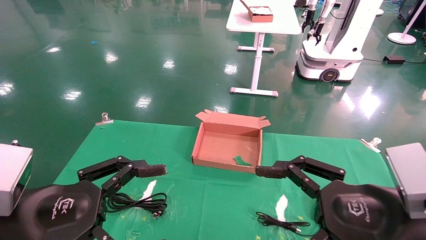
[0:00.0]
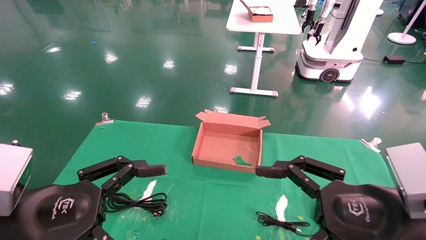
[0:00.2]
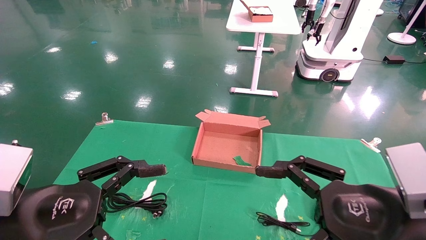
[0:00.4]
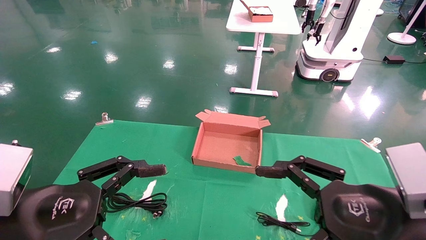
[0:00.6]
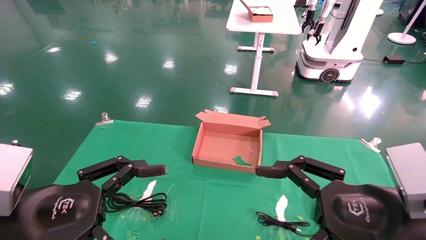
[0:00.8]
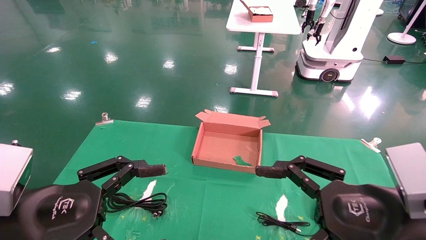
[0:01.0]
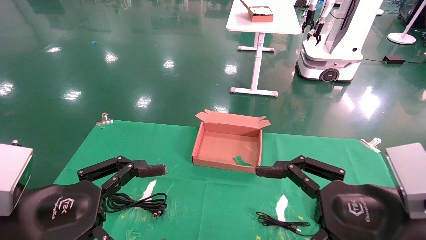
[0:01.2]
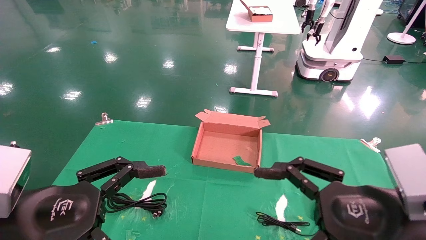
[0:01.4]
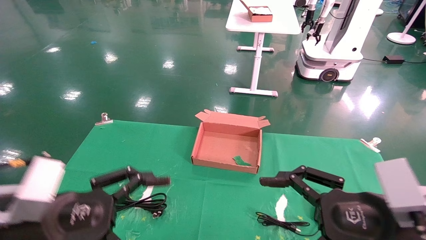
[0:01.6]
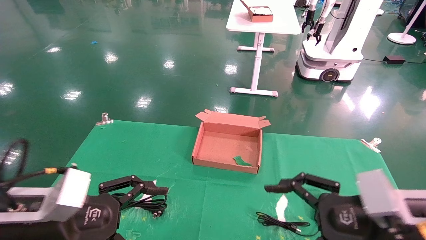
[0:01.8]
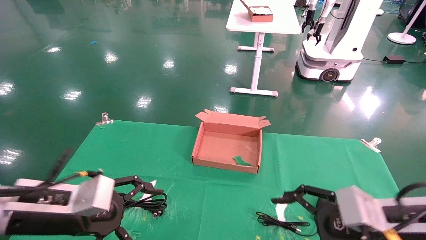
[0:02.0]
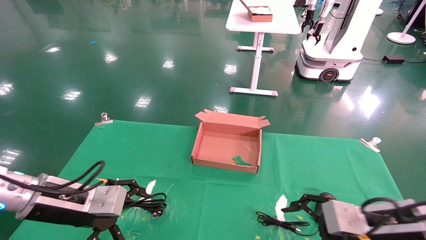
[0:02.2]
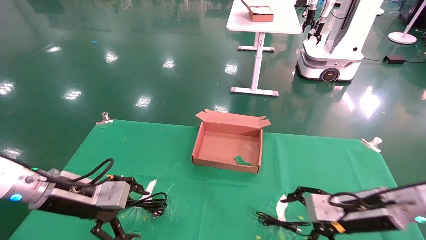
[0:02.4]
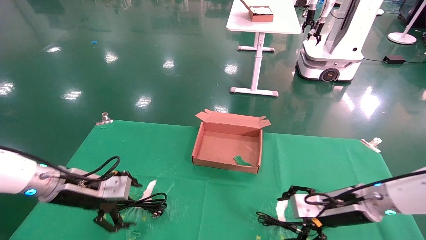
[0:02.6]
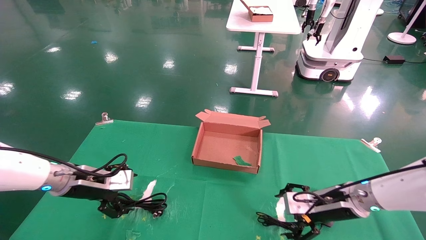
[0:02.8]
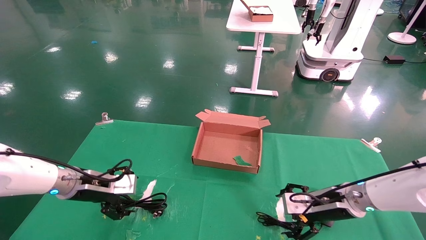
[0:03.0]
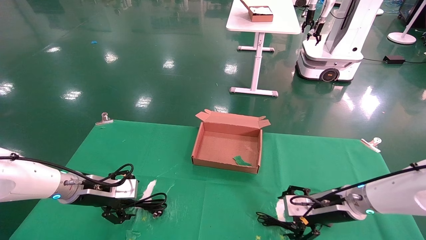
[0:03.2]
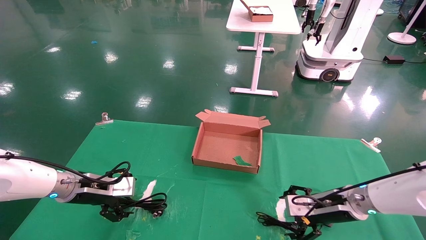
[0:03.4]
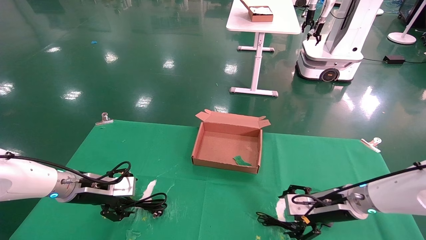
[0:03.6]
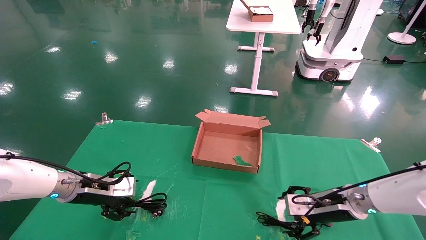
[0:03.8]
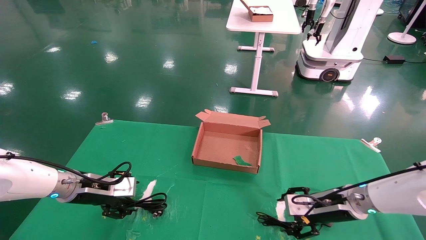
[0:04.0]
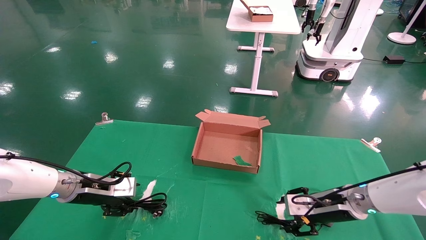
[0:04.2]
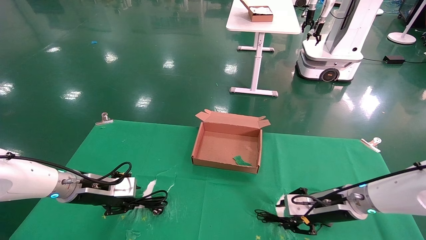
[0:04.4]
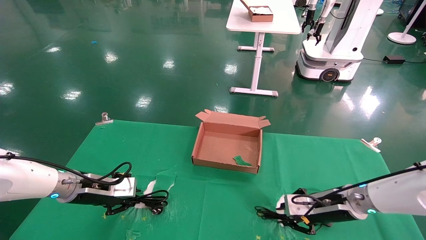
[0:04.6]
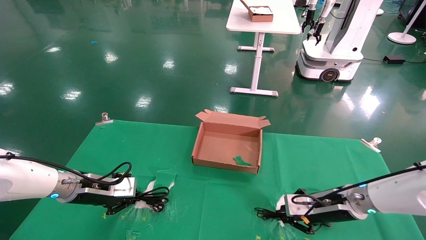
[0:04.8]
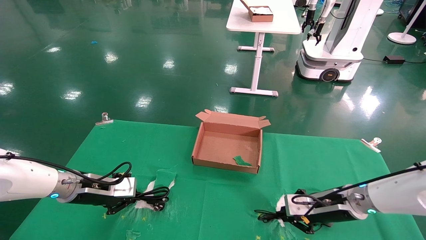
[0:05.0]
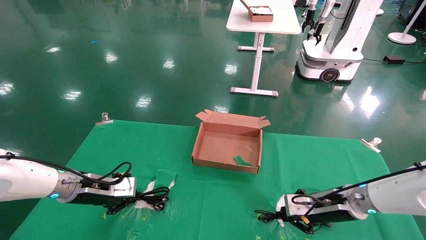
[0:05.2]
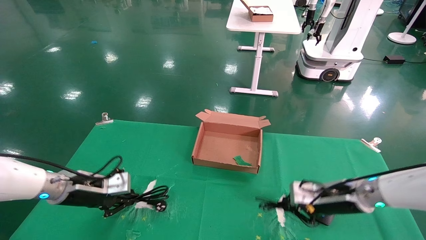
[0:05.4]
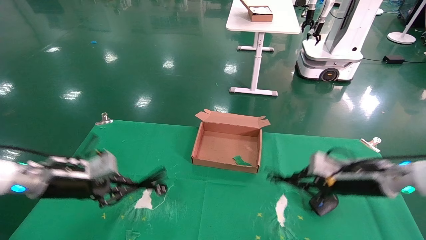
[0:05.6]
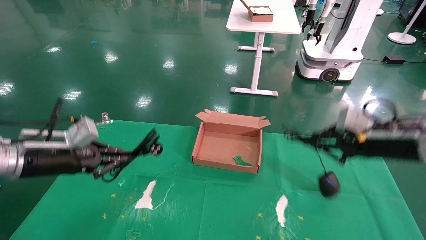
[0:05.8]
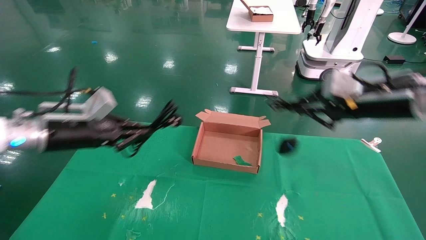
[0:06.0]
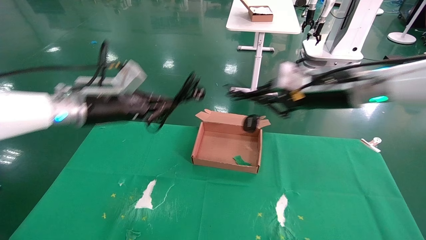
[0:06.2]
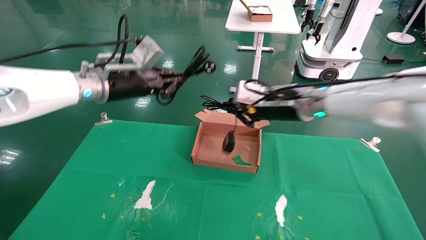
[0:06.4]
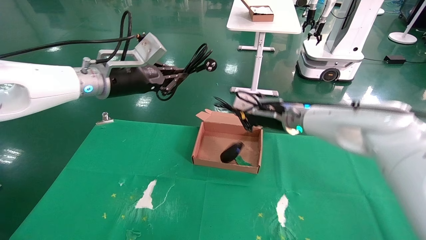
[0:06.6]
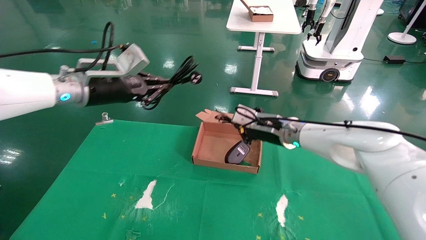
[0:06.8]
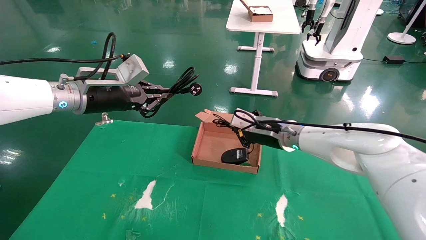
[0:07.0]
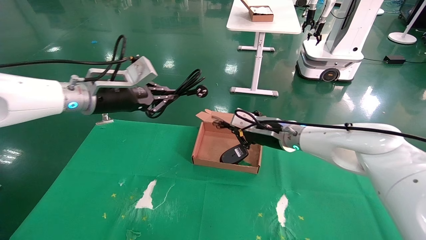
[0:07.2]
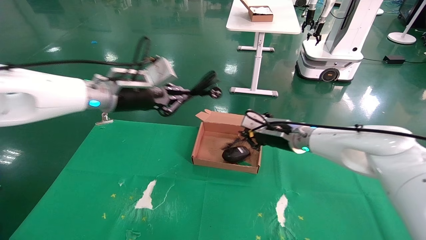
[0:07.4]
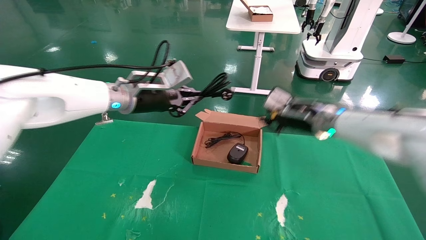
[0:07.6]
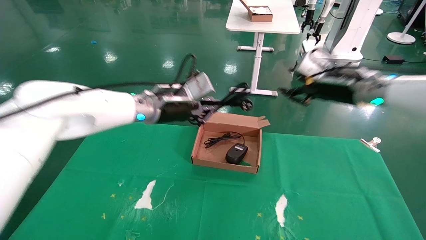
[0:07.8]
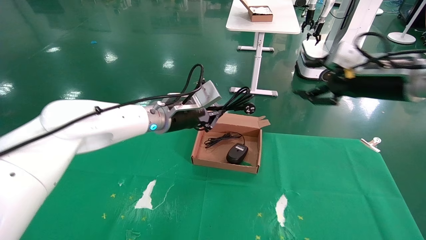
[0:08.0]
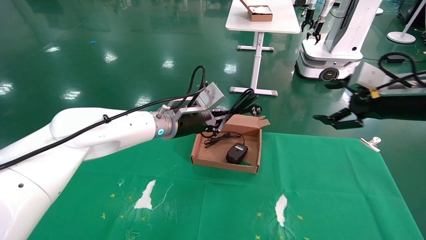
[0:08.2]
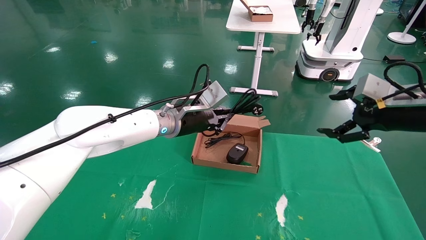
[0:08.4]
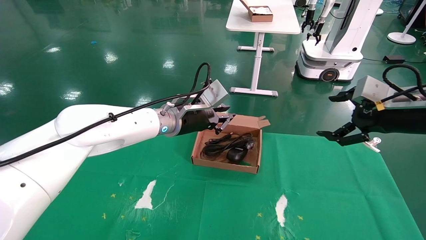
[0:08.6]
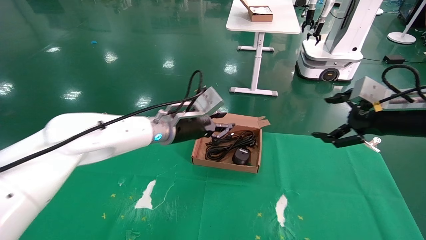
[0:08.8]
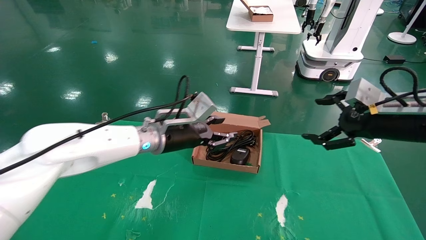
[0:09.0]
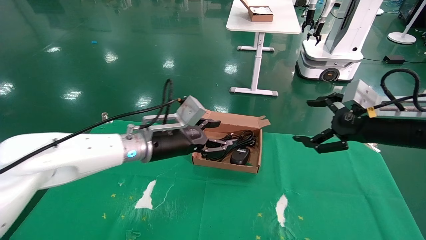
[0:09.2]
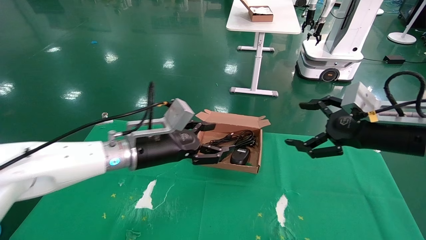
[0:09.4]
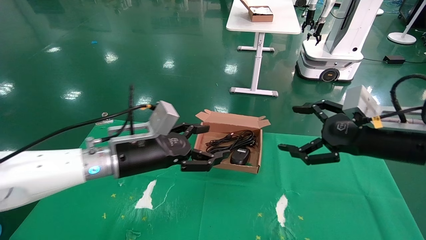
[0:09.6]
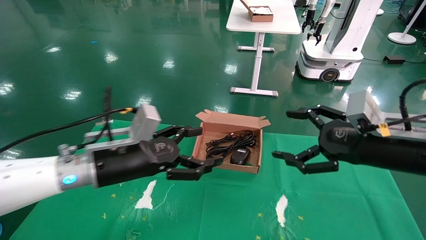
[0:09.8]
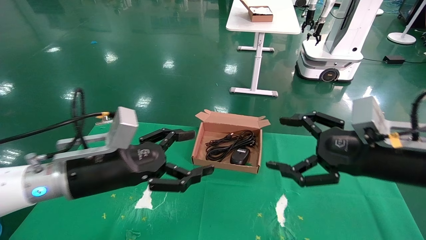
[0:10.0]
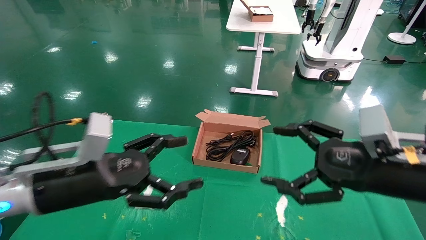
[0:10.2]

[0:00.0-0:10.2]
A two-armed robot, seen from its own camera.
Step, 0:02.0 to 0:05.8: Grab and lift both the mouse and power cord from the accessory packaging area at the same time.
Step, 0:06.0 to 0:09.8: Place the mouse and power cord into the box.
0:00.0 to 0:01.4: Neither gripper changes place.
0:01.4 to 0:03.0: The right gripper is displaced forward and downward by some 25 cm. Meanwhile the left gripper is displaced forward by about 25 cm.
0:03.0 to 0:04.4: The right gripper closes its fingers; the left gripper closes.
0:04.4 to 0:05.8: The right gripper is displaced upward by about 15 cm, and closes up. The left gripper moves upward, approximately 10 cm, and closes up.
0:05.8 to 0:07.2: The right gripper goes approximately 20 cm to the left and forward. The left gripper heads to the right and upward, covering about 15 cm.
0:07.2 to 0:08.8: The left gripper heads to the right and downward, covering approximately 15 cm; the right gripper shifts roughly 25 cm to the right and backward, and opens up.
0:08.8 to 0:10.2: The left gripper travels backward and to the left by roughly 25 cm, and opens its fingers. The right gripper goes approximately 15 cm backward, to the left and downward.

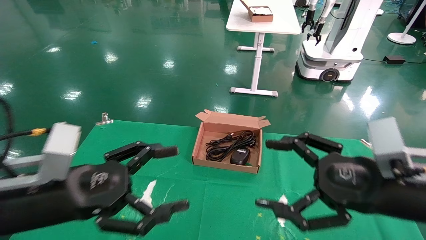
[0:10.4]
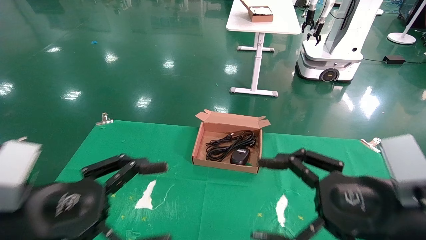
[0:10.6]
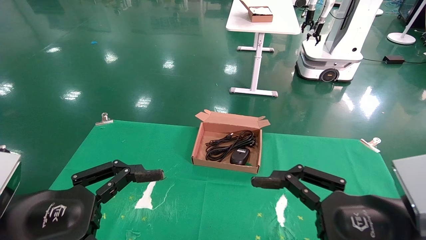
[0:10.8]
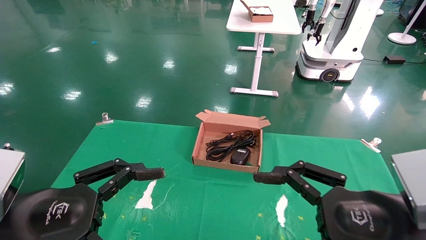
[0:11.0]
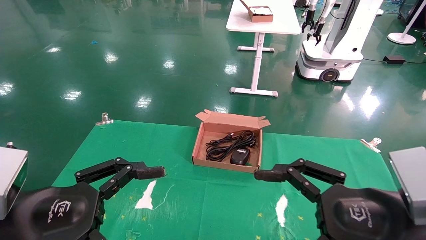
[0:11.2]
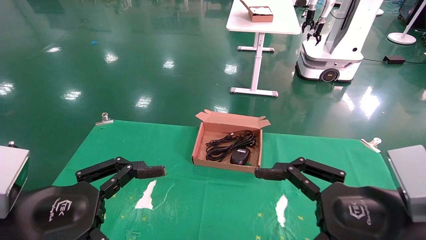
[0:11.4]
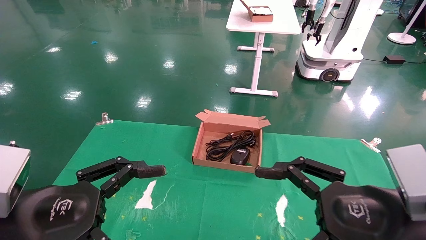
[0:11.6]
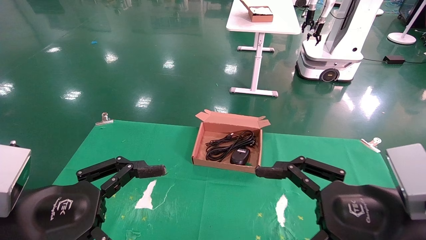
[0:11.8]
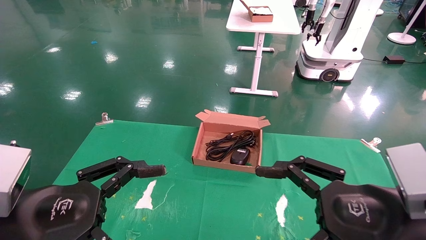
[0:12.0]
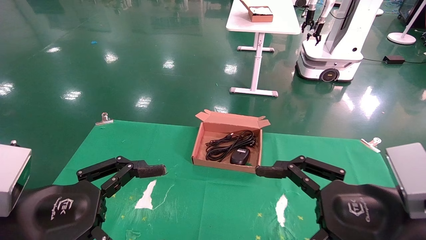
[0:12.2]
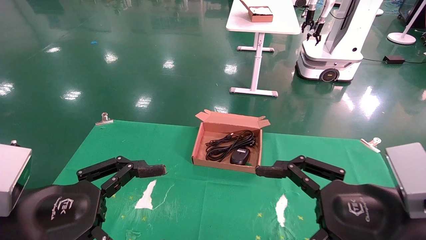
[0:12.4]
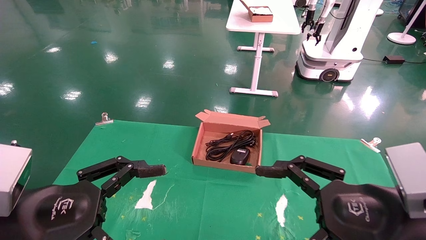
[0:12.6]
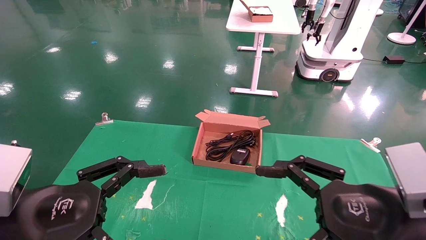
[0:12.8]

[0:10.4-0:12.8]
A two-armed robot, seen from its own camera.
0:11.6 to 0:12.8: Both grippers stay about where they are.
